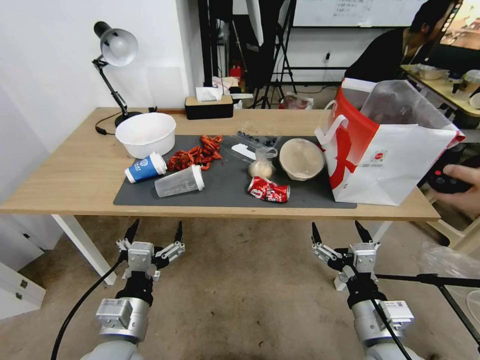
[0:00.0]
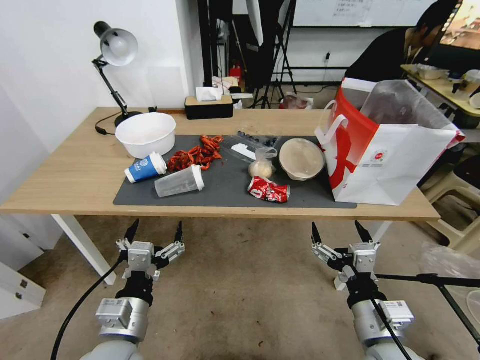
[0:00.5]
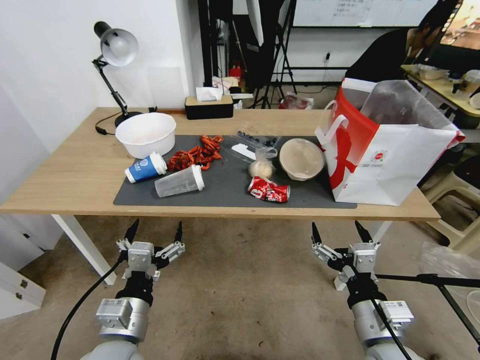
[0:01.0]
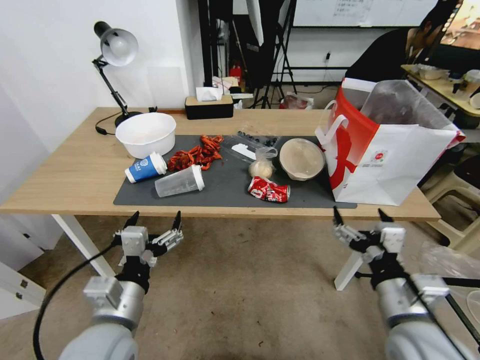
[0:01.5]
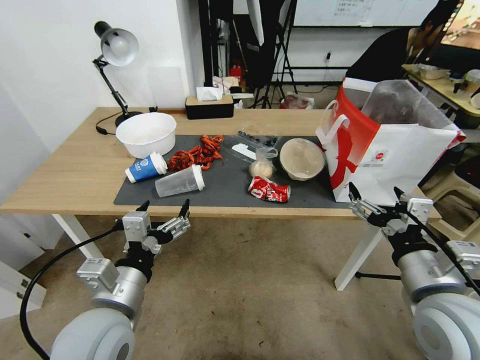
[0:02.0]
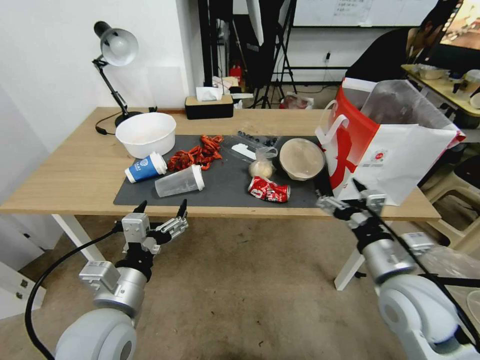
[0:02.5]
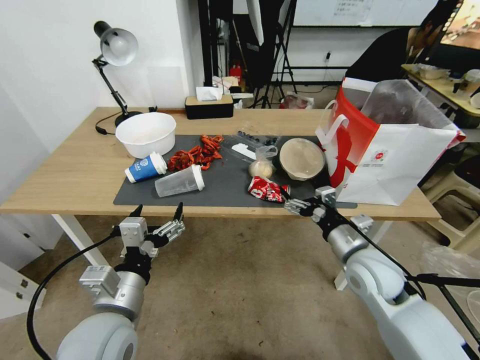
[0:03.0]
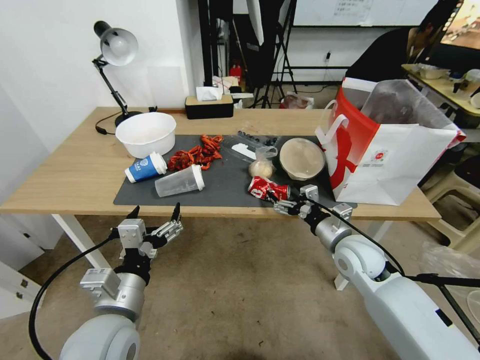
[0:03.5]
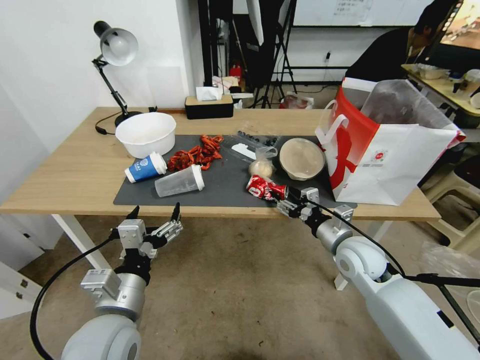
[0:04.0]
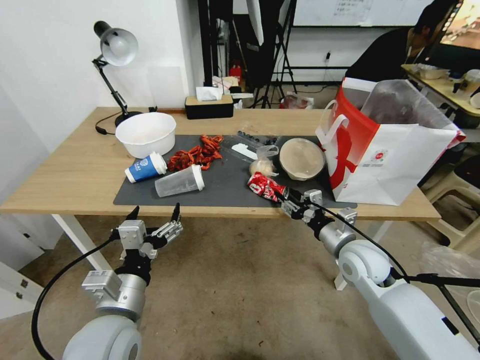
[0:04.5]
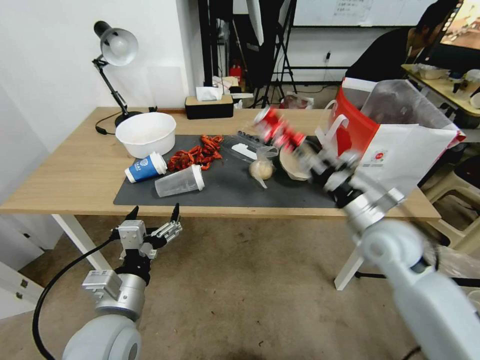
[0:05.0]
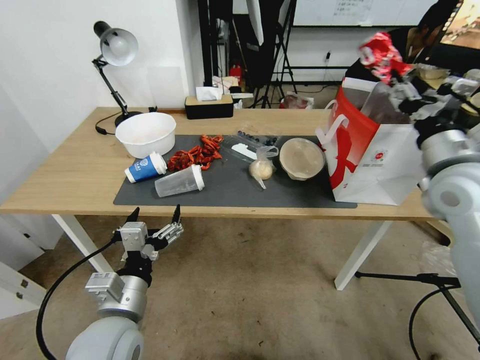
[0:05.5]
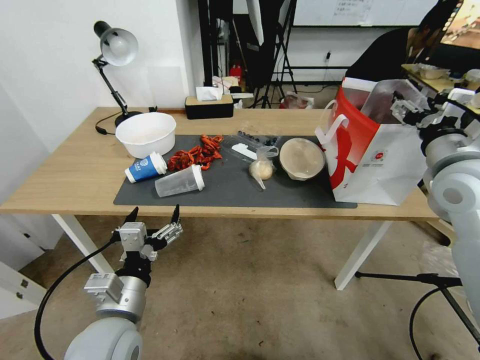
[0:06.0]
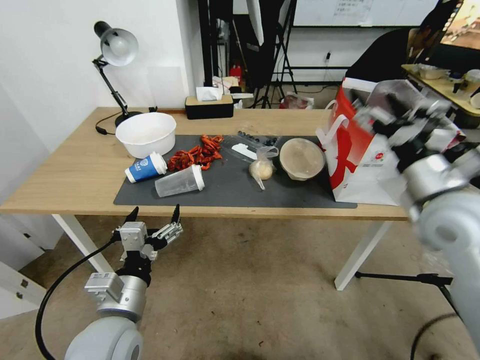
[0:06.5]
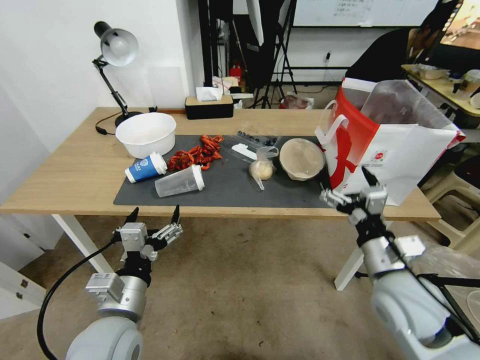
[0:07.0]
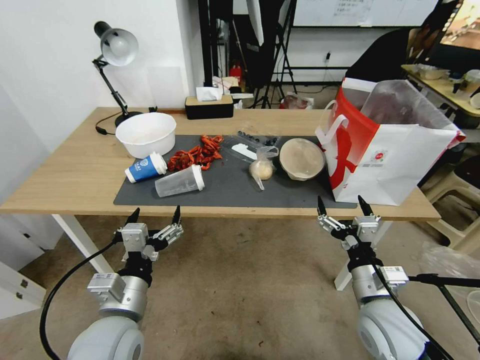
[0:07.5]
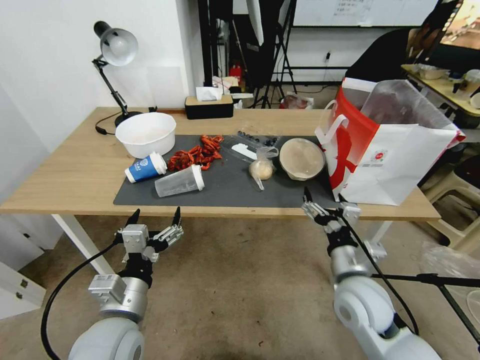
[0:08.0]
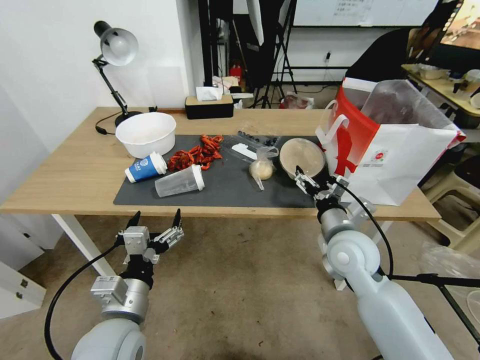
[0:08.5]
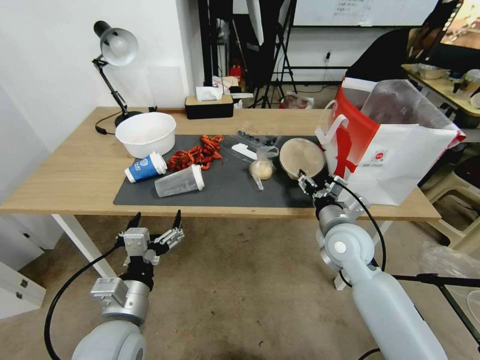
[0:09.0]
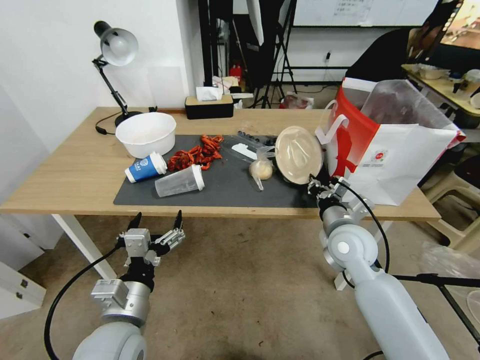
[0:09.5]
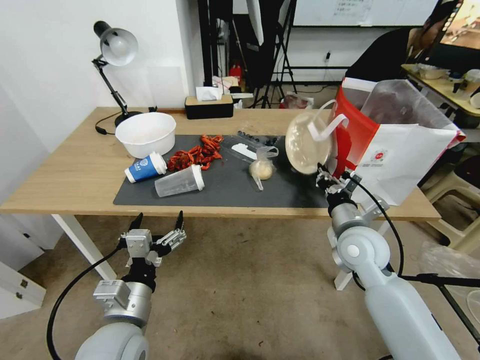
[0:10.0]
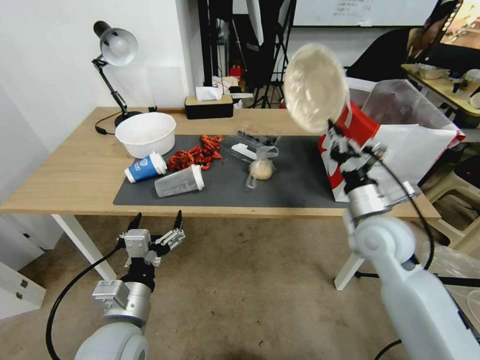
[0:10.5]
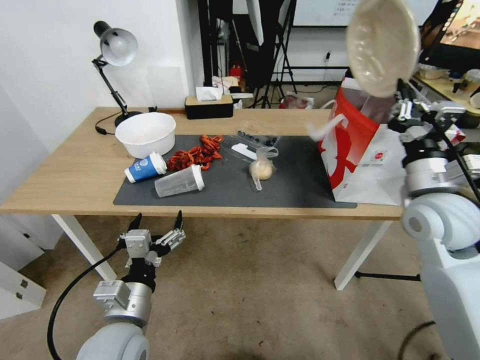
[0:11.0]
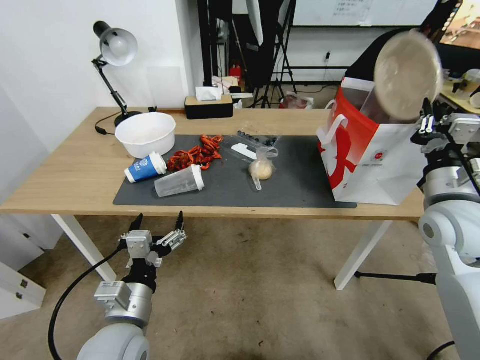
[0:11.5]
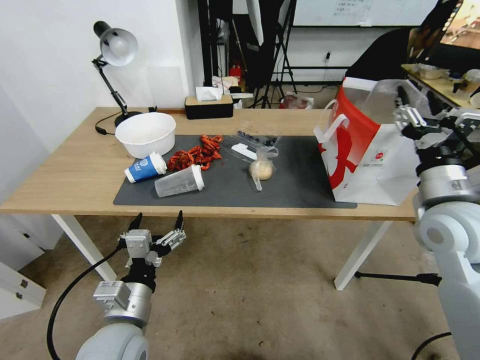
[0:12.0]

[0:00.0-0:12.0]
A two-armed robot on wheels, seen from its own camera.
0:02.0 to 0:04.0: The right gripper goes about 20 cm forward and downward, and closes its fingers.
0:04.0 to 0:06.0: The right gripper is displaced upward by some 25 cm.
0:06.0 to 0:08.0: The right gripper travels downward, to the left and backward by roughly 25 cm.
0:08.0 to 0:10.0: The right gripper travels forward by some 10 cm, and closes its fingers.
0:10.0 to 0:12.0: The right gripper is displaced upward and to the right by about 15 cm, and opens its fingers.

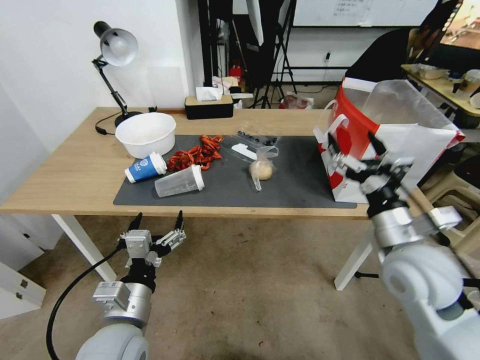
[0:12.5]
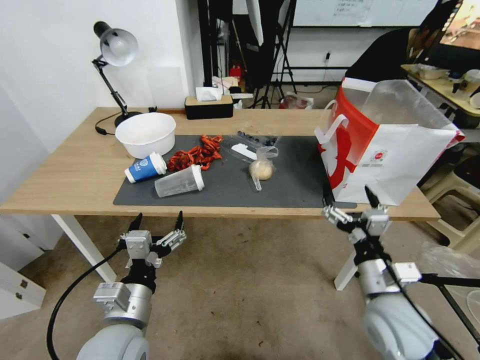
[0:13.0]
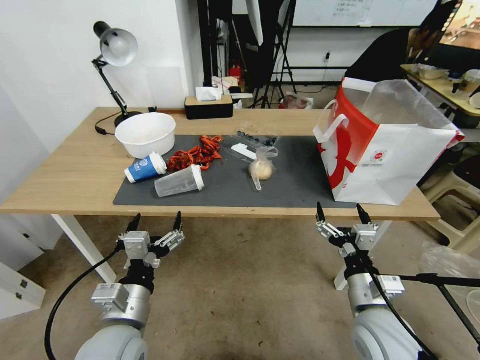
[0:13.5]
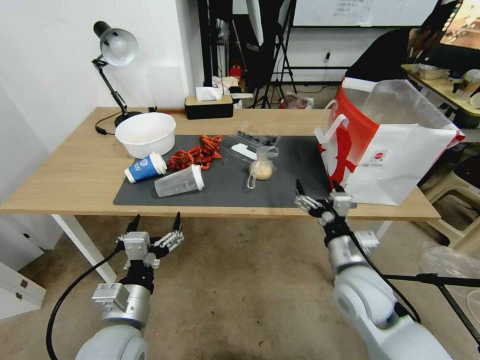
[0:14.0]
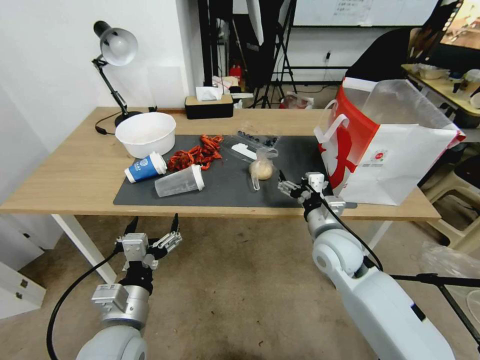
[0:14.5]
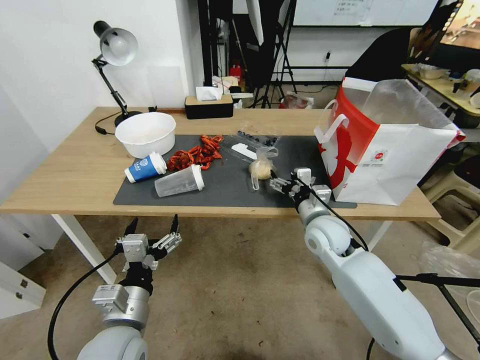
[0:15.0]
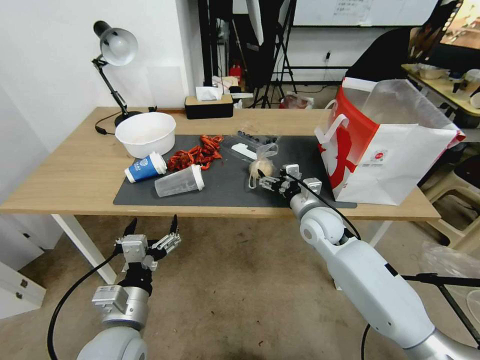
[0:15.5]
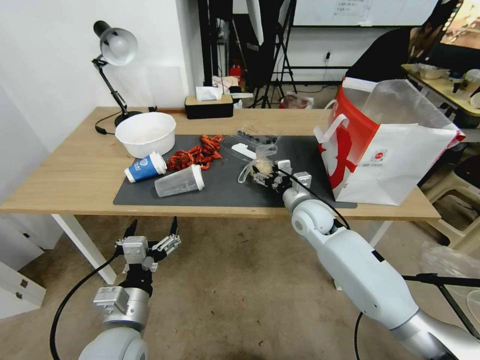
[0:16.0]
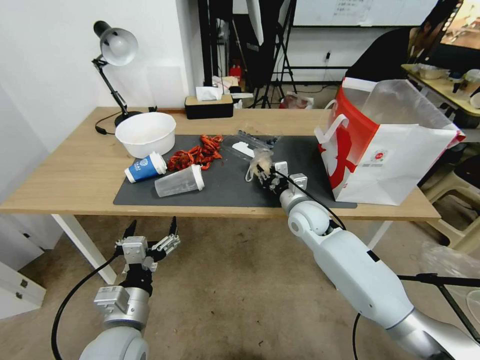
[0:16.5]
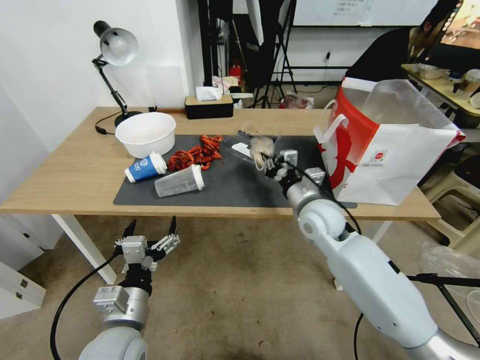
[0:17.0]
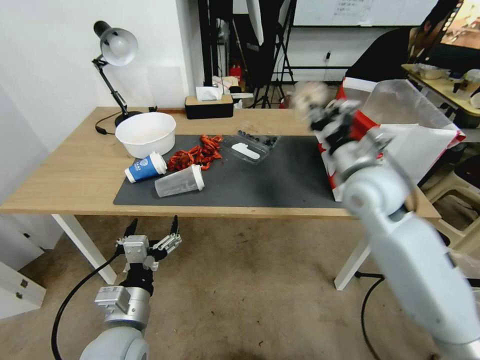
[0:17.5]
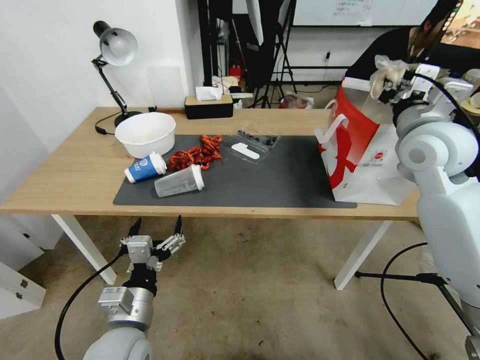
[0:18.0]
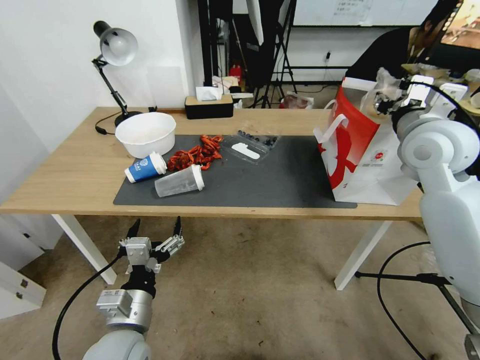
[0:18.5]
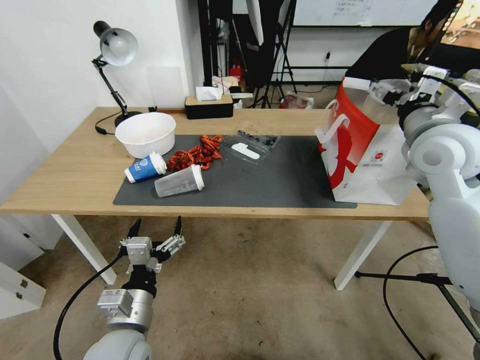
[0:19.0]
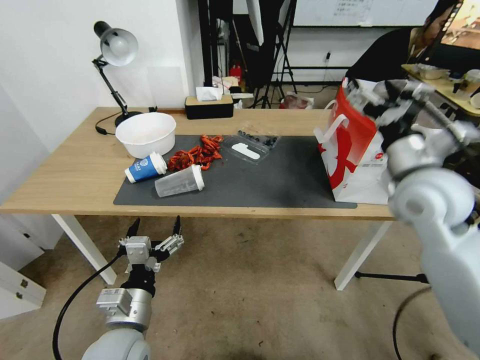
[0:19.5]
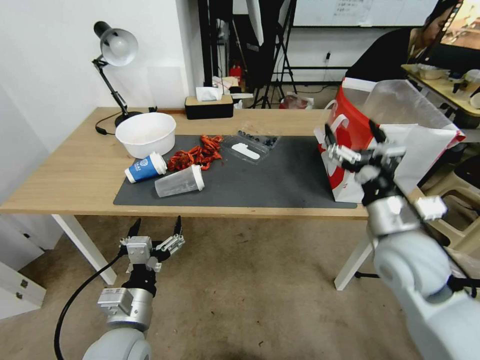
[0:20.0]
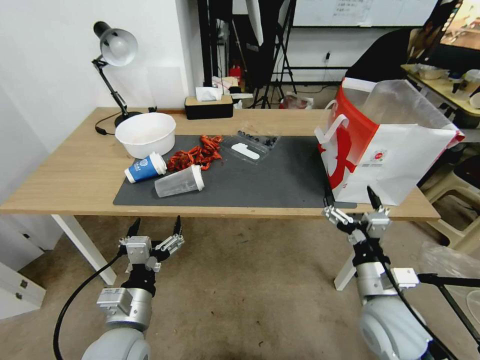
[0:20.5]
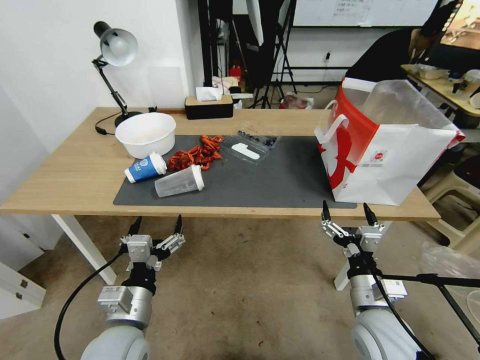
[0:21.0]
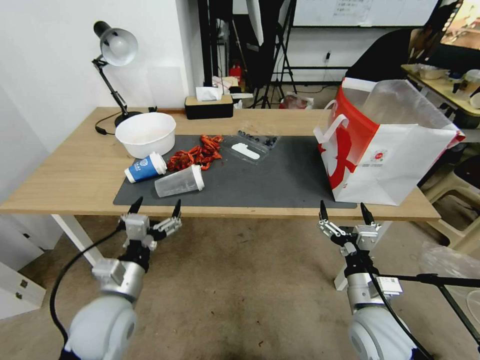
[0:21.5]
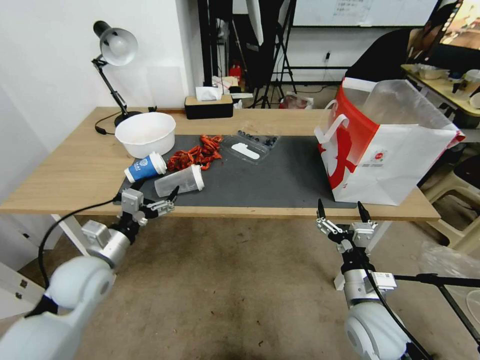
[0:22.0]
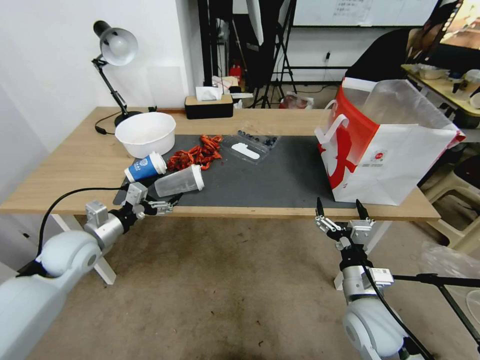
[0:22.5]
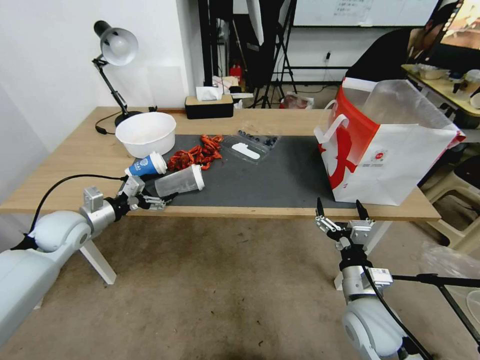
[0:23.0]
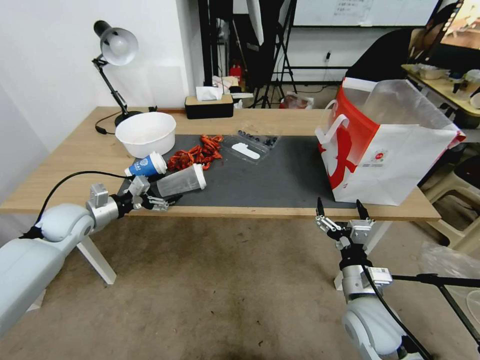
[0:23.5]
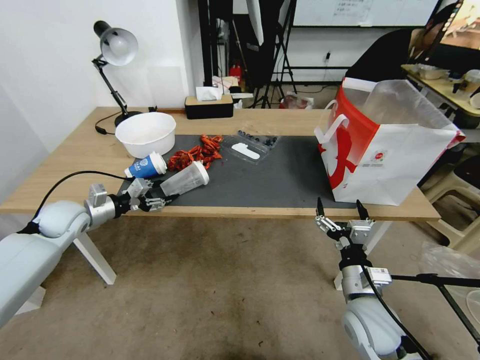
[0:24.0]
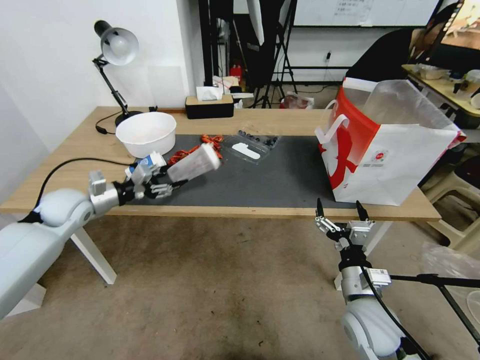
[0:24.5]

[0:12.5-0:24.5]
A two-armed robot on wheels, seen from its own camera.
0:12.5 to 0:14.5: The right gripper moves forward, downward and to the left, some 15 cm.
0:14.5 to 0:16.5: The right gripper moves forward, roughly 10 cm, and closes up.
0:16.5 to 0:18.5: The right gripper is displaced upward and to the right by some 30 cm.
0:18.5 to 0:20.5: The right gripper goes roughly 30 cm downward and backward, and opens.
0:20.5 to 0:22.5: The left gripper shifts some 25 cm forward and to the left.
0:22.5 to 0:24.5: The left gripper travels forward by some 10 cm, and closes up.

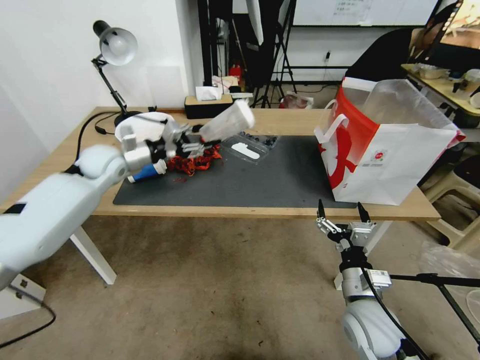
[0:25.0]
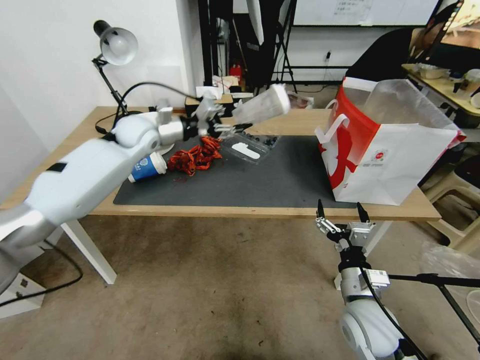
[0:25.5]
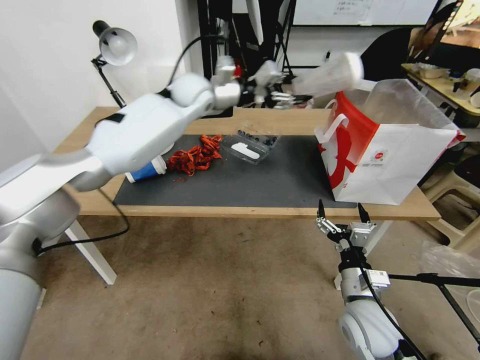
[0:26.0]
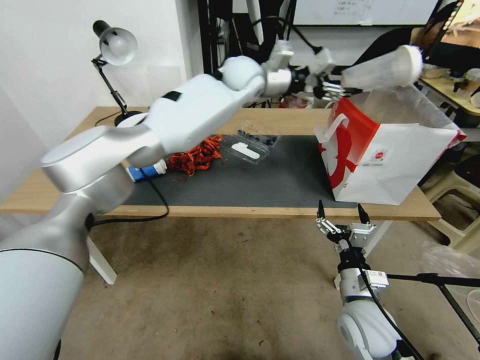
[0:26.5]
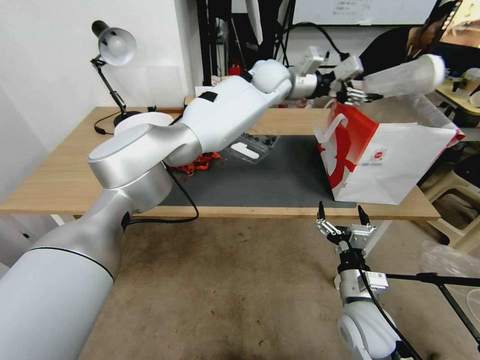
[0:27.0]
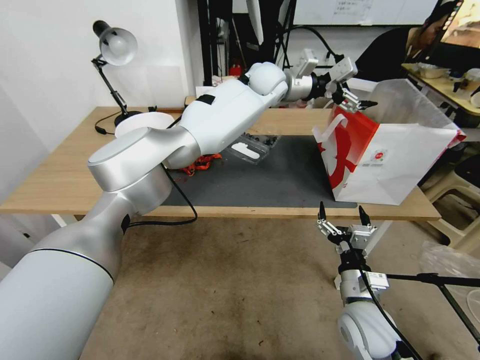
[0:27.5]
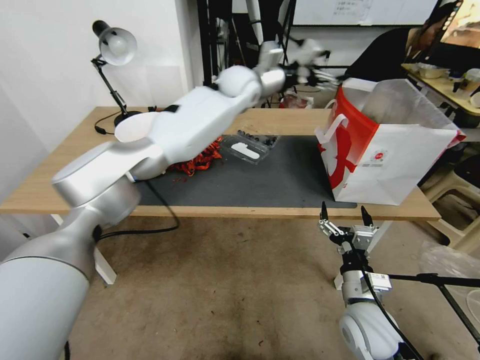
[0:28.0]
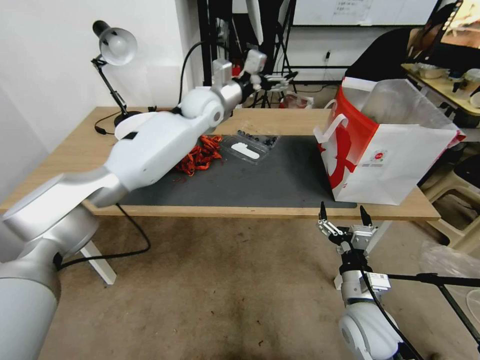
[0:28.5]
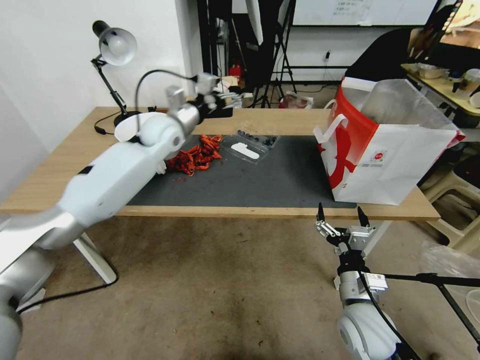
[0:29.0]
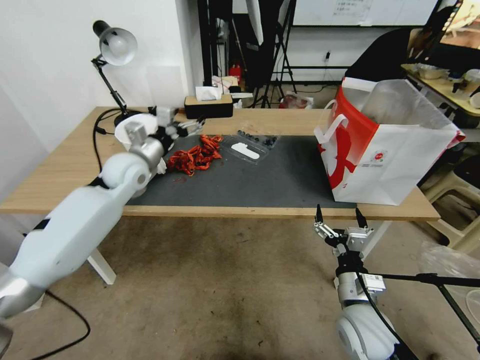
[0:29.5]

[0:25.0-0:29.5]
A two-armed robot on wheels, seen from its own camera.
0:25.0 to 0:27.0: The left gripper shifts roughly 40 cm to the right.
0:27.0 to 0:29.5: The left gripper heads to the left, downward and backward, covering about 40 cm, and opens.
